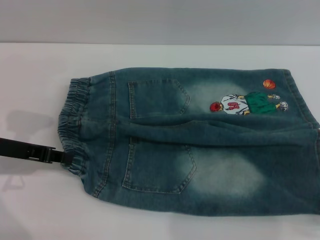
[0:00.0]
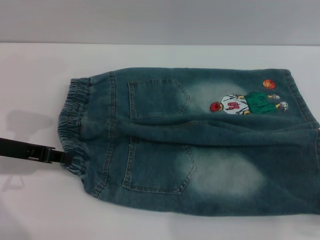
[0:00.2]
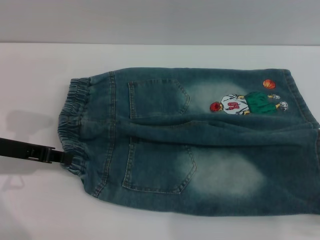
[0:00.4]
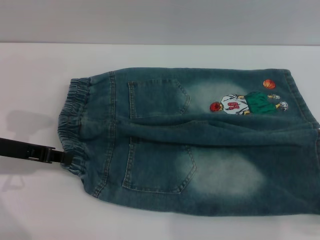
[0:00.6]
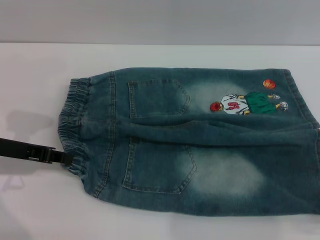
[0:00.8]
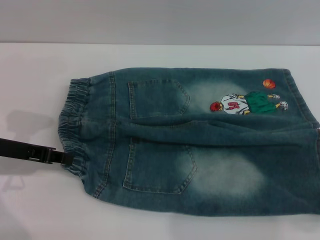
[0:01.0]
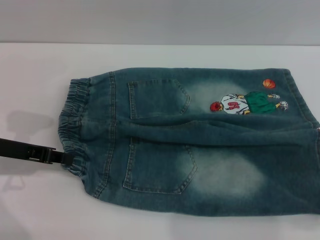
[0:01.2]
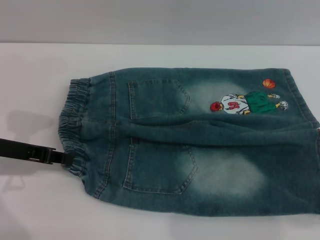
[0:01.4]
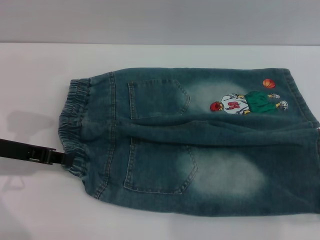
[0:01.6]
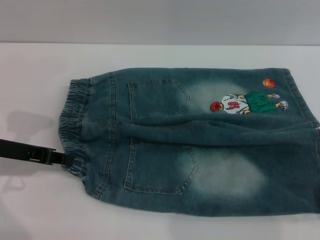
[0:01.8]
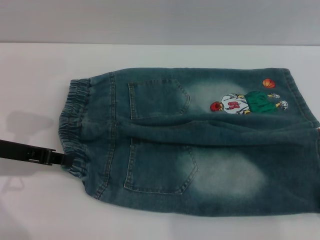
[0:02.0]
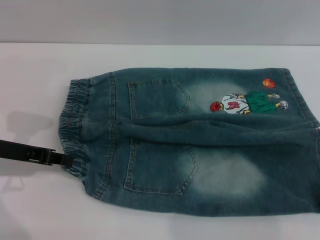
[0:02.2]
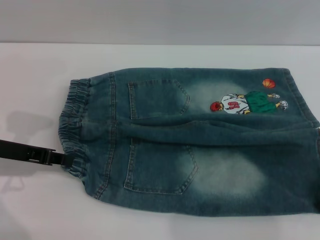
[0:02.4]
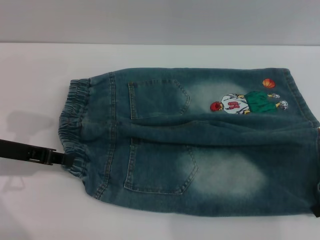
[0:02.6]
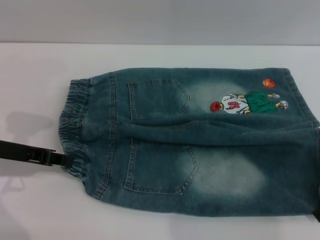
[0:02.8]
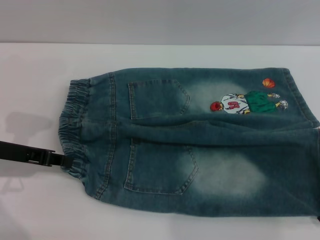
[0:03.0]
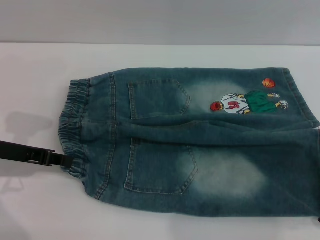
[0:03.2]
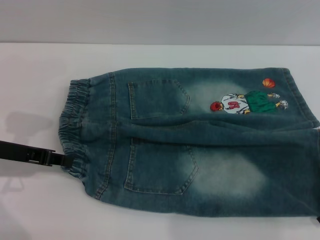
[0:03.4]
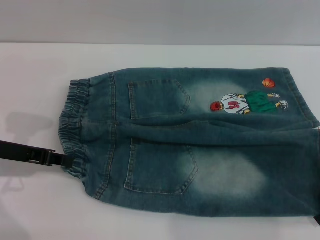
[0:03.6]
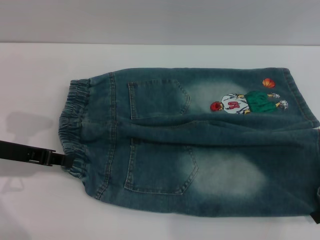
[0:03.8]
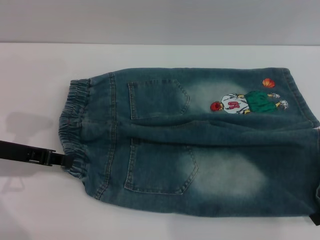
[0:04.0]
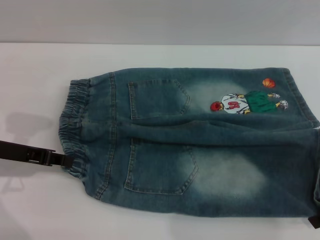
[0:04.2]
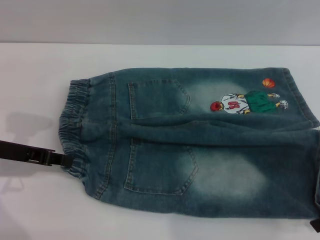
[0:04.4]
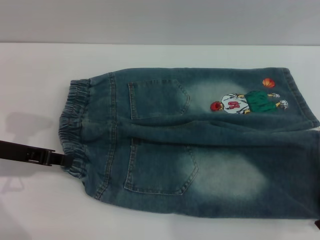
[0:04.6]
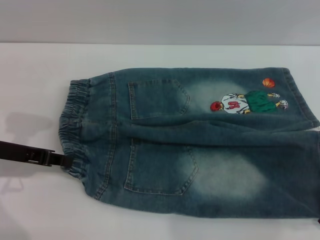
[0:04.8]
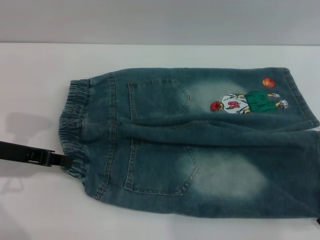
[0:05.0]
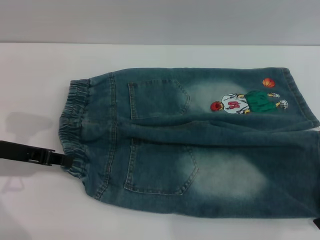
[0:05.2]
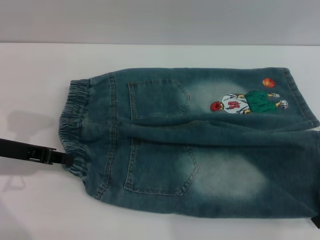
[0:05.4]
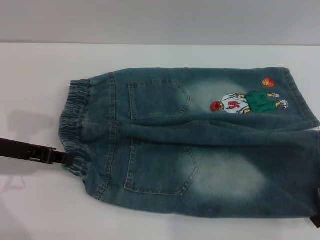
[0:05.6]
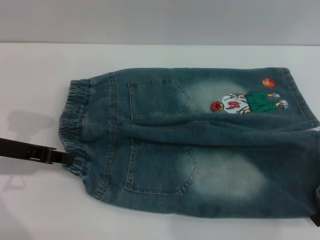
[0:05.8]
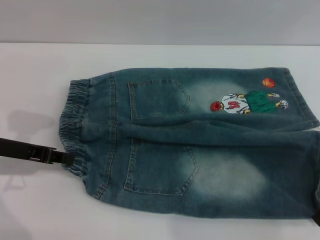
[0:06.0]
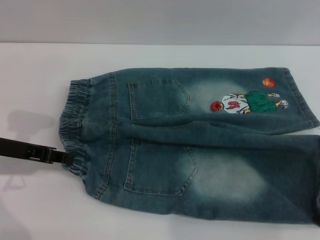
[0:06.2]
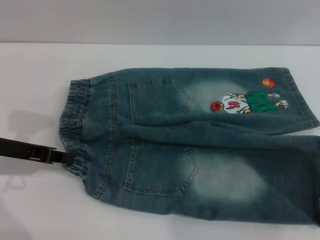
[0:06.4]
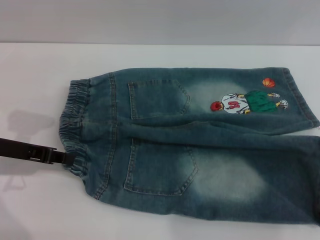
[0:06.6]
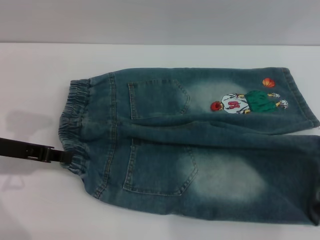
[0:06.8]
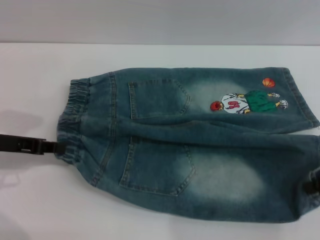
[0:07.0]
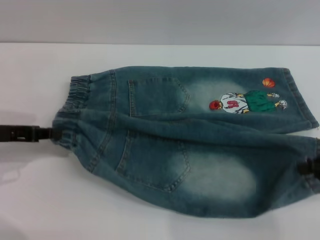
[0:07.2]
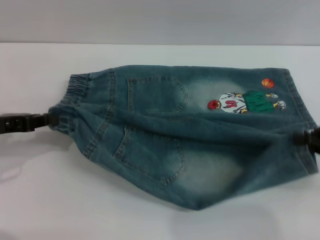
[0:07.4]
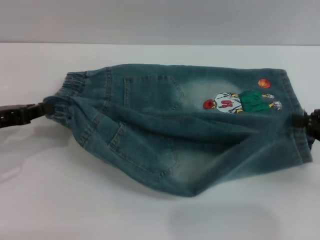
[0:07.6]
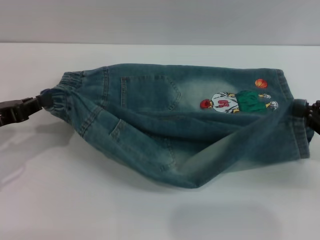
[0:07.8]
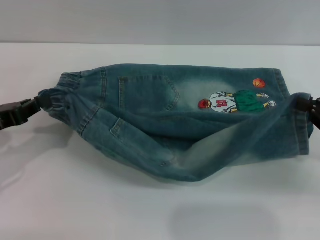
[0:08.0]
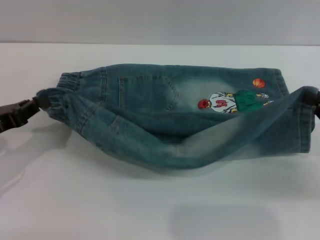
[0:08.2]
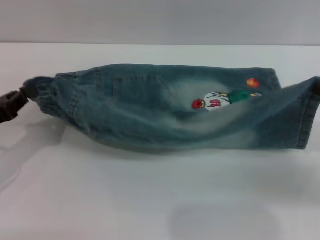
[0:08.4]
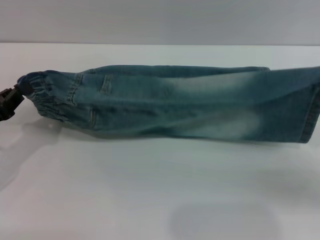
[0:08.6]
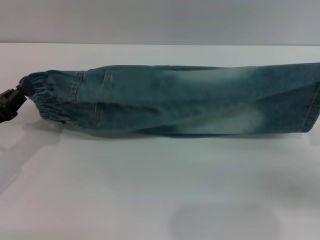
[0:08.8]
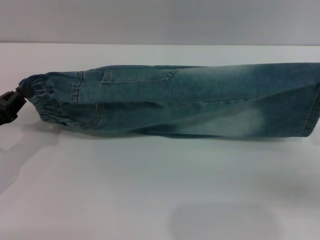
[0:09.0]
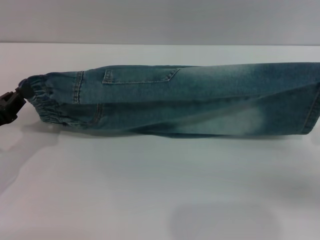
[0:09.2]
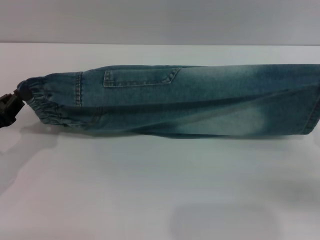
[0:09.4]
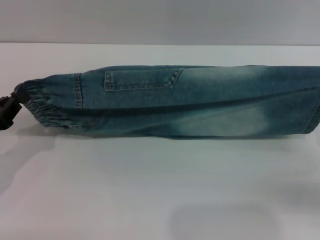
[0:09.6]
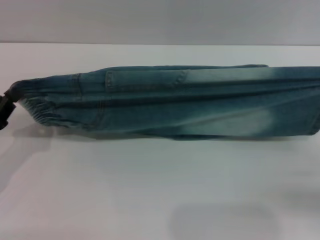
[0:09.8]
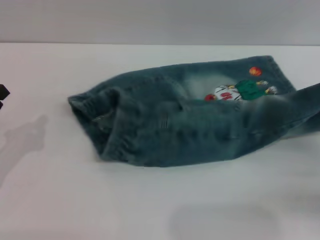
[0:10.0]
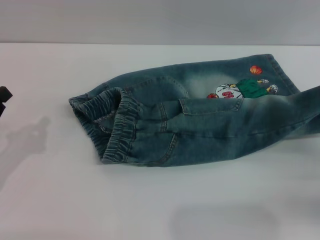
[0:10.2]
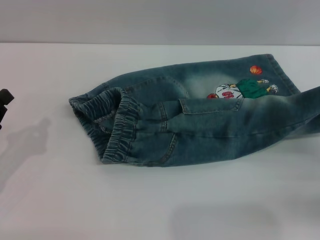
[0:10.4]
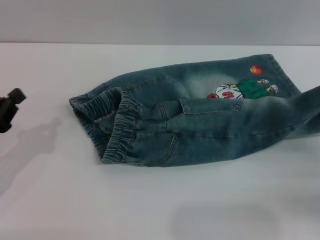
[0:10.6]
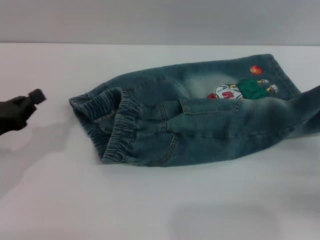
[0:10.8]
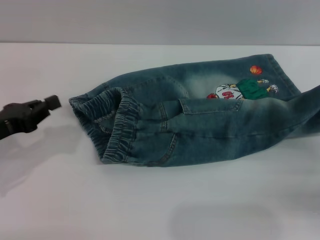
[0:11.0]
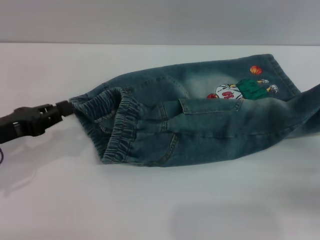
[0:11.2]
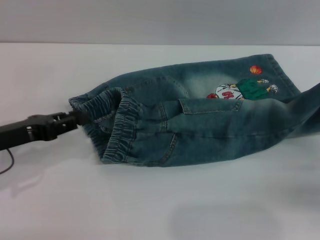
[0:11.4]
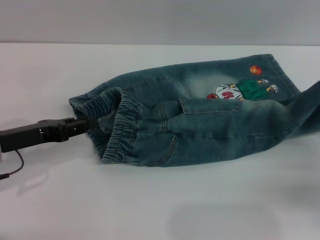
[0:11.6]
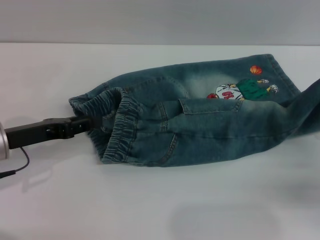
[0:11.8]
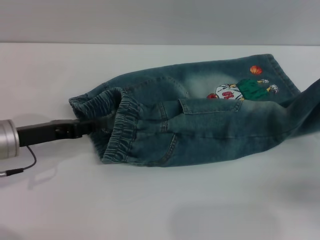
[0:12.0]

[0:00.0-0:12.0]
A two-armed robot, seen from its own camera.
0:00.0 to 0:01.6: The two grippers keep their place.
0:01.6 to 0:03.0: The grippers move only a little.
0:03.0 to 0:04.4: The two grippers keep their place.
0:04.4 to 0:06.0: Neither gripper changes place.
0:06.0 to 0:07.6: The right gripper closes up.
0:07.6 to 0:09.0: The left gripper moves roughly 5 cm.
0:10.4 to 0:12.0: The left gripper is displaced forward and to the right by approximately 10 cm, and opens its fingers.

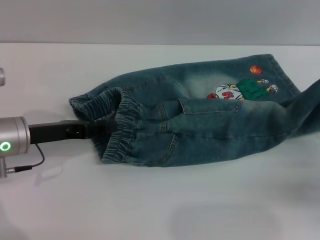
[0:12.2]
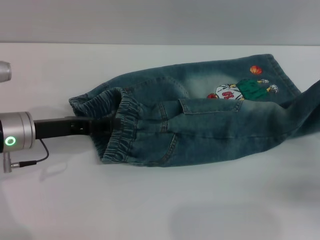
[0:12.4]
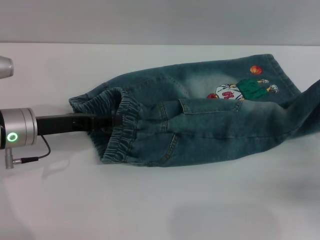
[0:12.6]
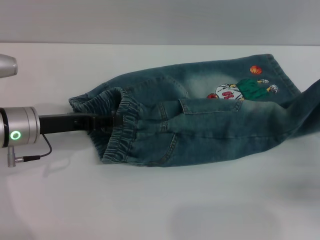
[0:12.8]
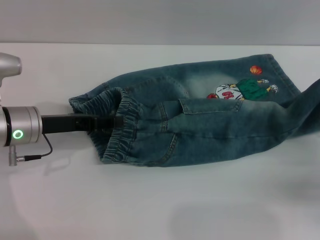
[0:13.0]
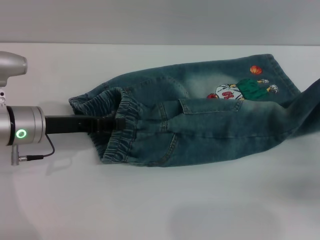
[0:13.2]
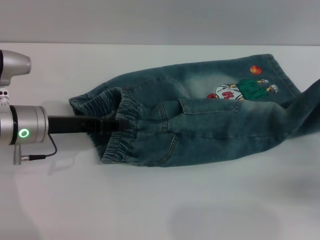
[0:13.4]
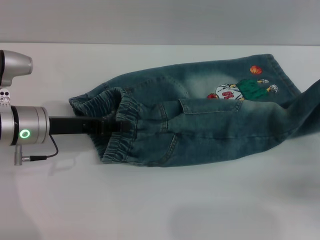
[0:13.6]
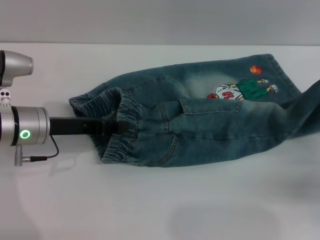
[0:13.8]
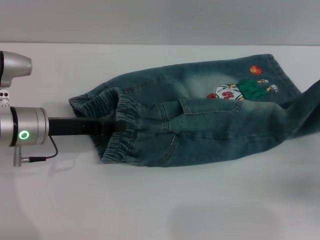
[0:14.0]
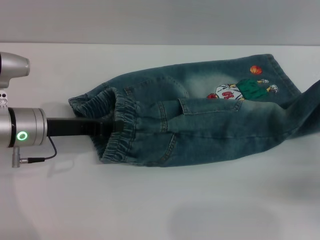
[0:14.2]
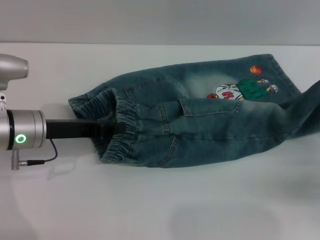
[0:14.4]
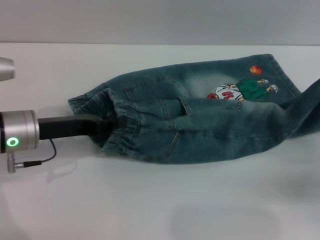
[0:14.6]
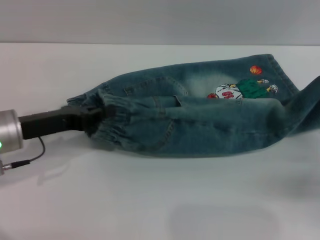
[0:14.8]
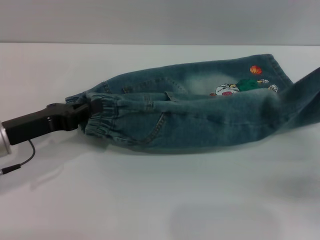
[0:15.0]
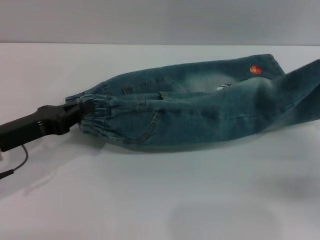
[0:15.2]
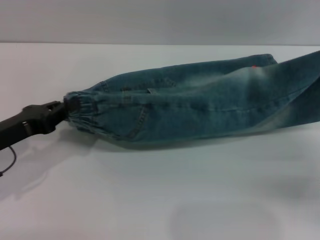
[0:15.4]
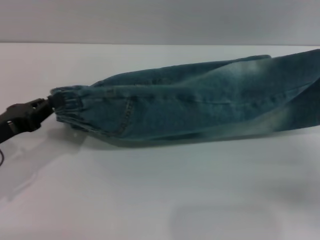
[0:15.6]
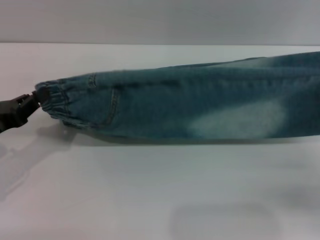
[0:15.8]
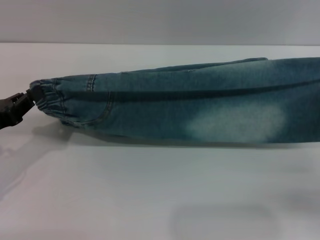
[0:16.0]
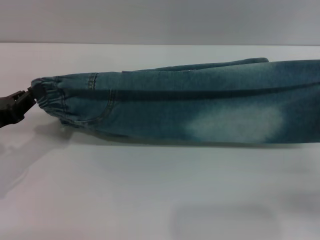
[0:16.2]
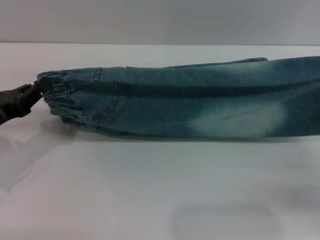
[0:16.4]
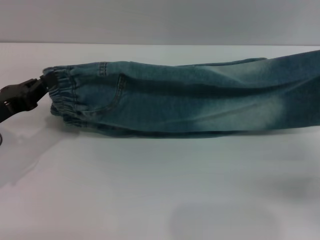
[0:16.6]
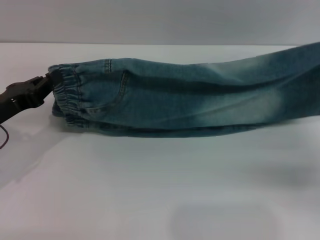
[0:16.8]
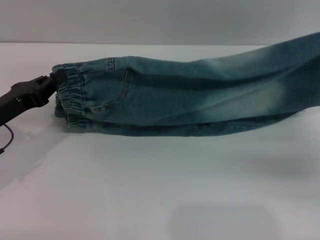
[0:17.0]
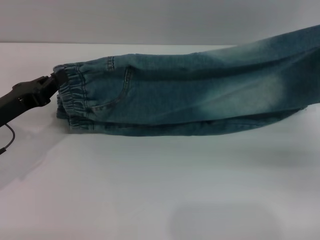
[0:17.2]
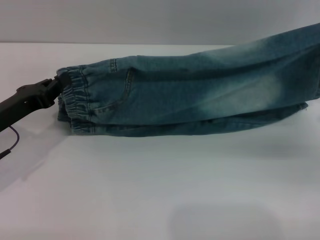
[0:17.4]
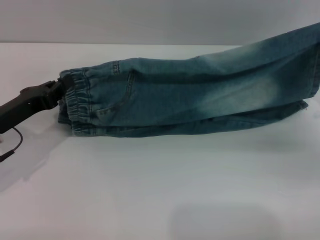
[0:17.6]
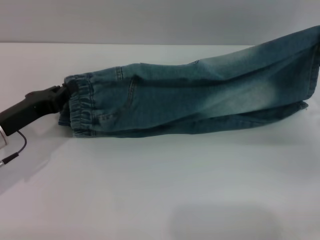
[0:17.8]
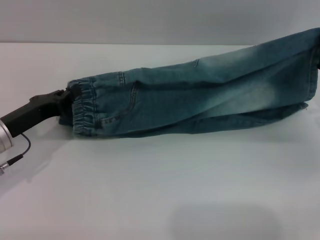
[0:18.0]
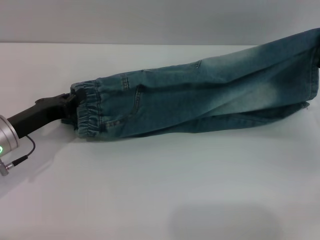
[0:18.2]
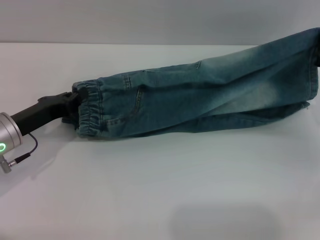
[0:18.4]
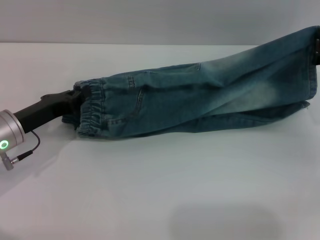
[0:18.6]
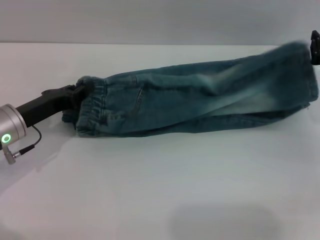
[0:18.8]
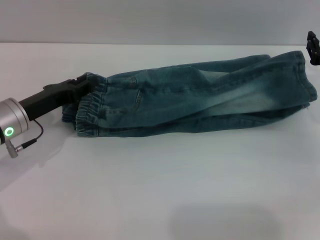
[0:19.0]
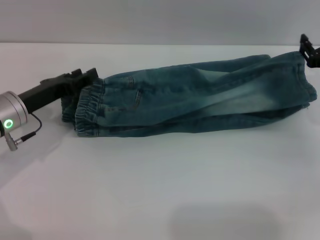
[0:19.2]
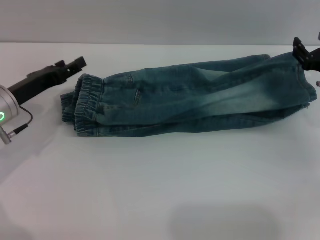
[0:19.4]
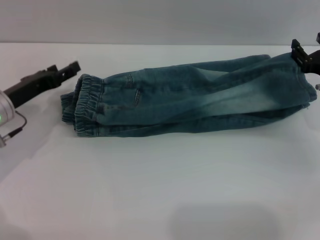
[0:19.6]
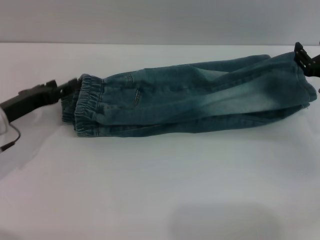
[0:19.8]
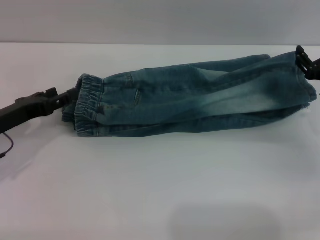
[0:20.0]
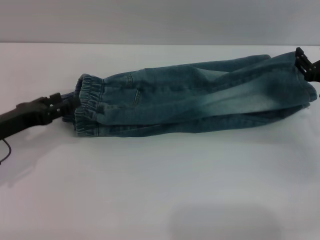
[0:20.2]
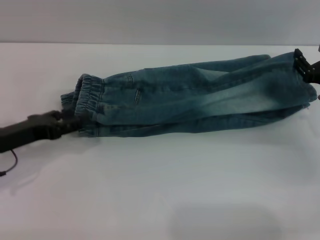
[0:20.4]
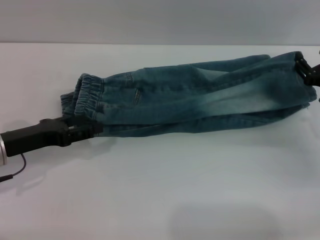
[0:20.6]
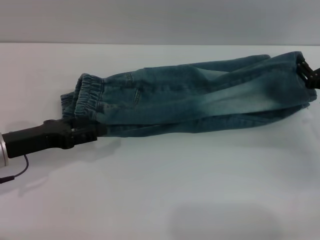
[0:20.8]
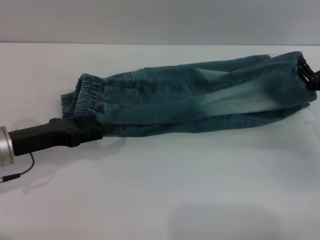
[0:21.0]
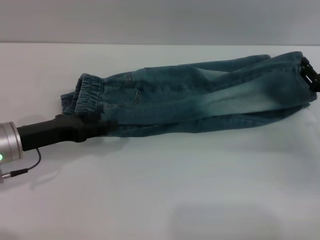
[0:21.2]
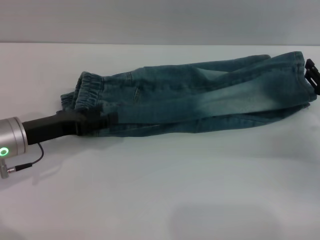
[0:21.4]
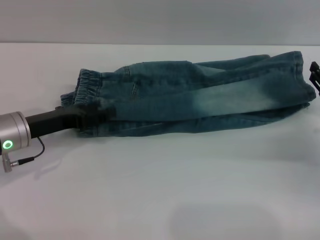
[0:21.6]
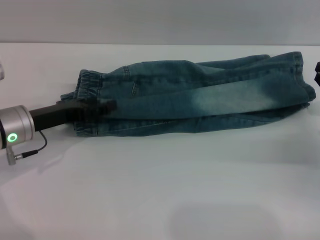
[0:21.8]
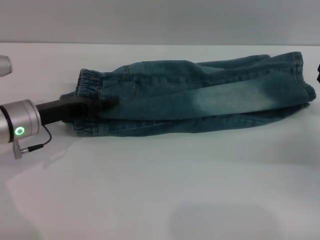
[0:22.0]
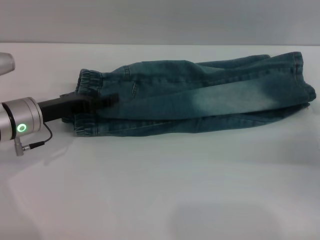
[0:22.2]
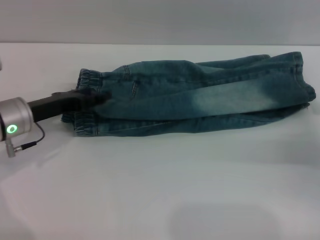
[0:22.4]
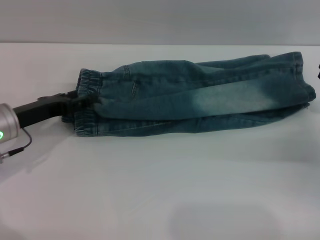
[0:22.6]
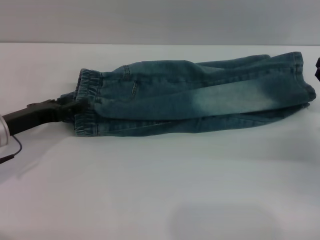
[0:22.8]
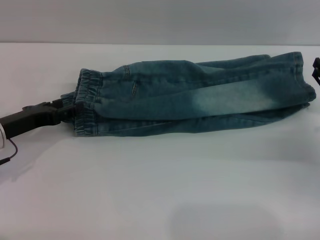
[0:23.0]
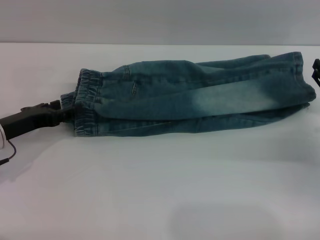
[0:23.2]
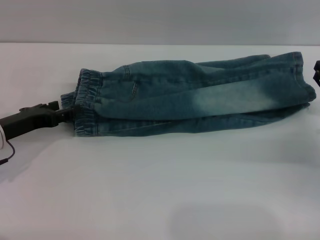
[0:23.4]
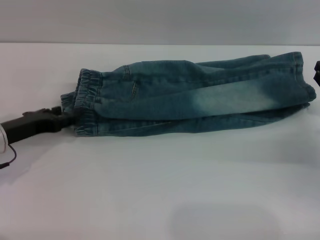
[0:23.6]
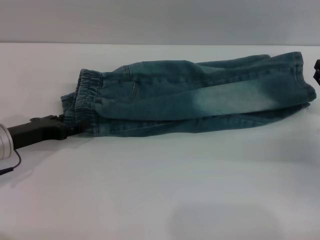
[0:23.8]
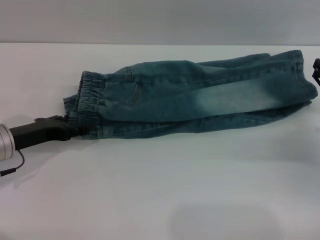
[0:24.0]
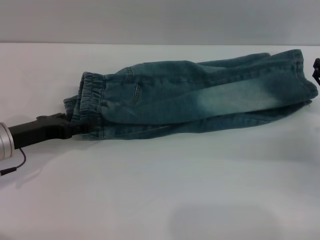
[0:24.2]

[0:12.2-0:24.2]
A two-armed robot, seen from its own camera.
Step, 0:12.2 to 0:20.0: Fold the bottom of the pants upward with both grippers.
0:12.2 to 0:13.8: There are only small adjustments of the grippers.
0:13.8 to 0:15.2: The left gripper travels backward by roughly 5 cm, and closes its fingers.
0:16.6 to 0:18.2: The right gripper shifts about 10 cm forward. The left gripper changes place by roughly 5 cm.
0:18.2 to 0:19.8: The right gripper opens its fingers; the left gripper opens up.
0:21.2 to 0:24.2: There are only small adjustments of the grippers.
